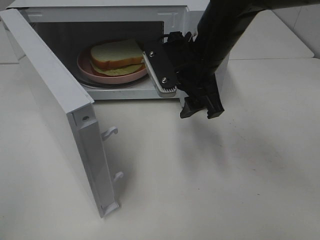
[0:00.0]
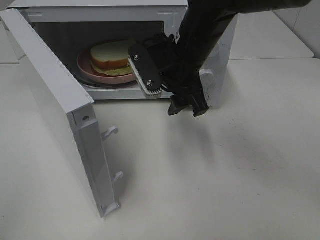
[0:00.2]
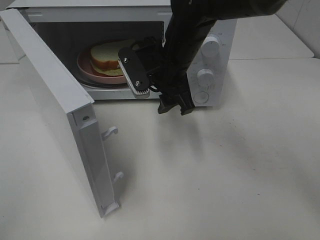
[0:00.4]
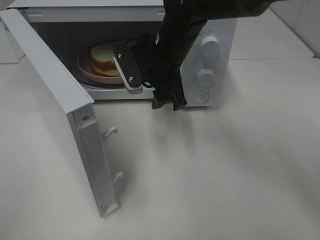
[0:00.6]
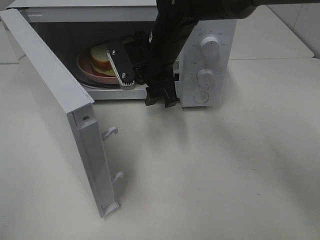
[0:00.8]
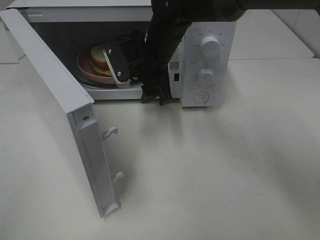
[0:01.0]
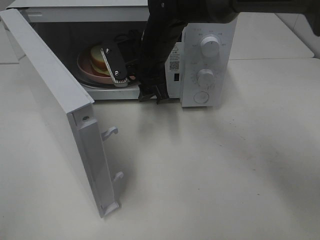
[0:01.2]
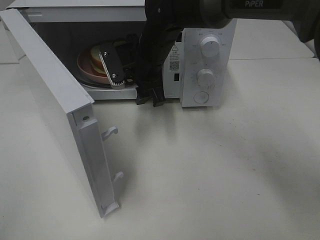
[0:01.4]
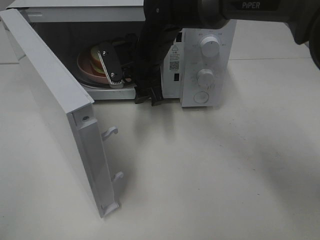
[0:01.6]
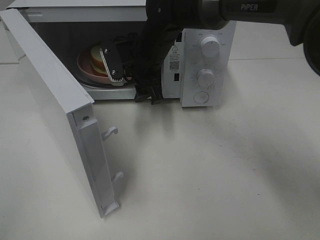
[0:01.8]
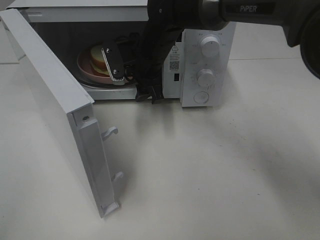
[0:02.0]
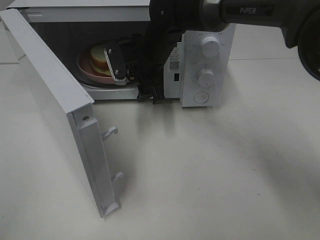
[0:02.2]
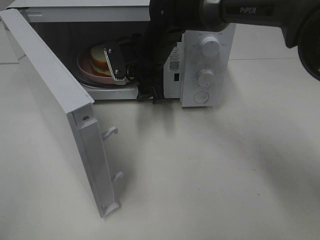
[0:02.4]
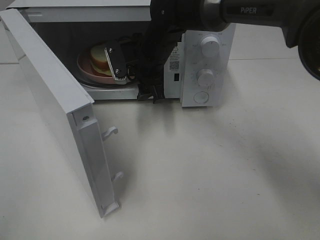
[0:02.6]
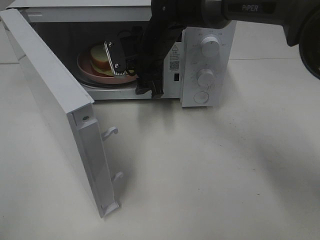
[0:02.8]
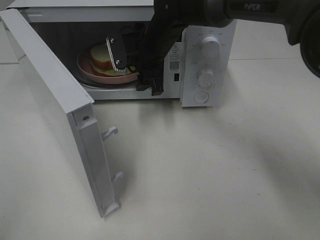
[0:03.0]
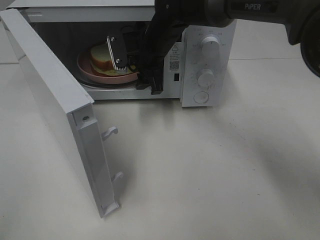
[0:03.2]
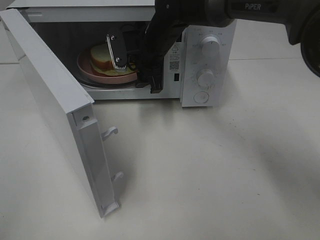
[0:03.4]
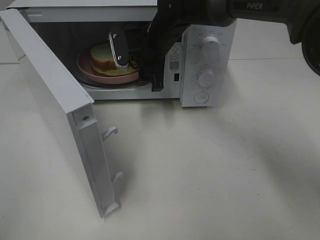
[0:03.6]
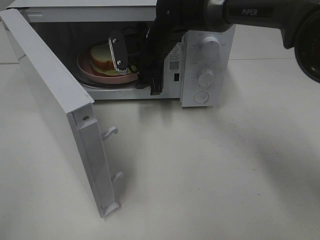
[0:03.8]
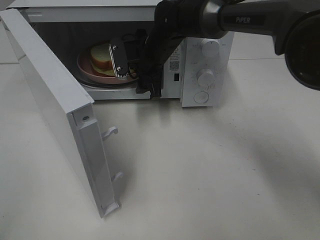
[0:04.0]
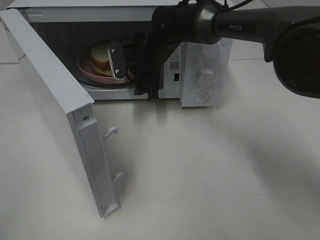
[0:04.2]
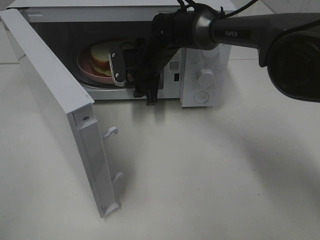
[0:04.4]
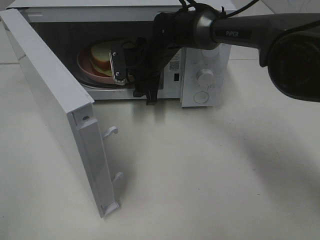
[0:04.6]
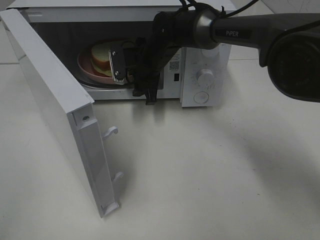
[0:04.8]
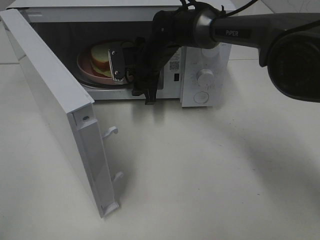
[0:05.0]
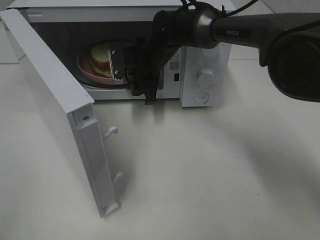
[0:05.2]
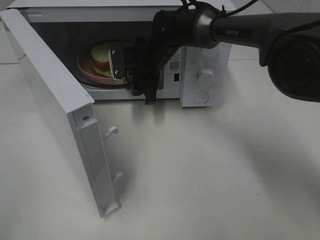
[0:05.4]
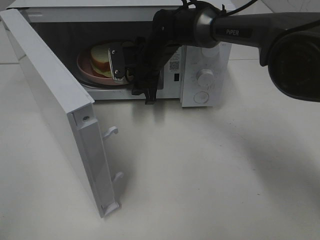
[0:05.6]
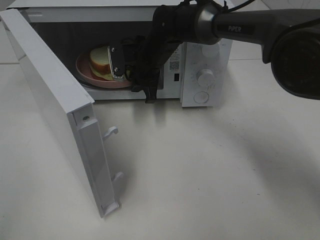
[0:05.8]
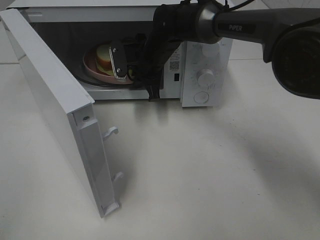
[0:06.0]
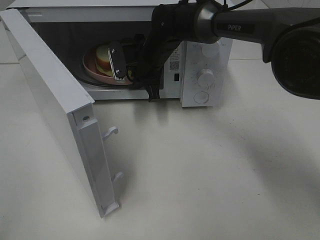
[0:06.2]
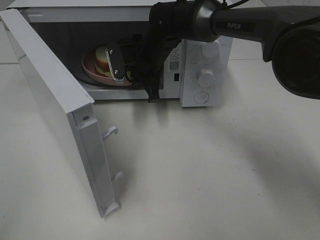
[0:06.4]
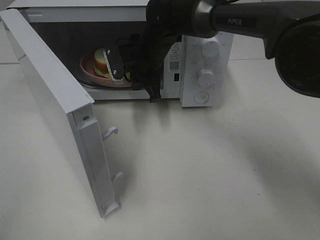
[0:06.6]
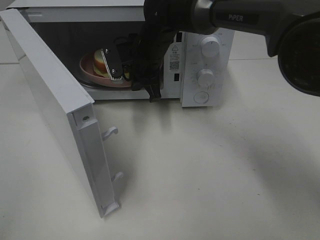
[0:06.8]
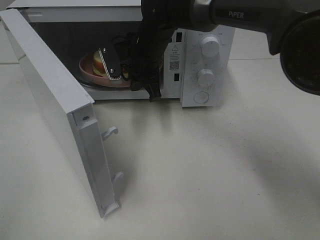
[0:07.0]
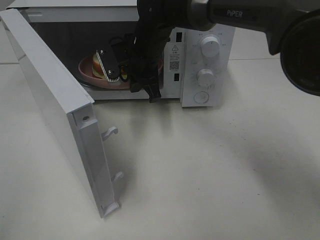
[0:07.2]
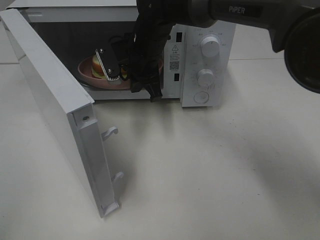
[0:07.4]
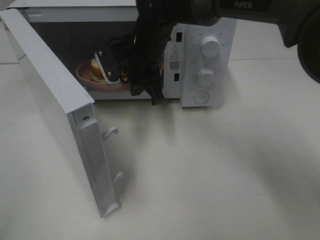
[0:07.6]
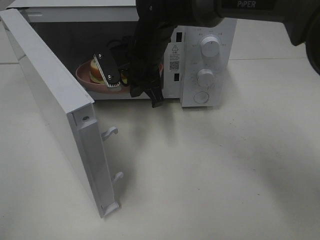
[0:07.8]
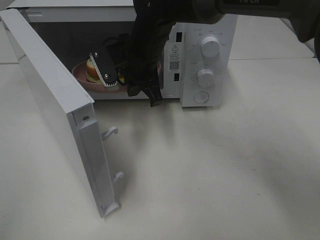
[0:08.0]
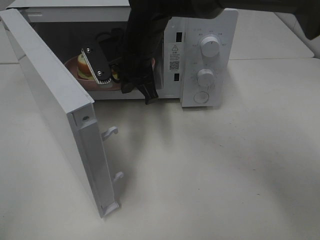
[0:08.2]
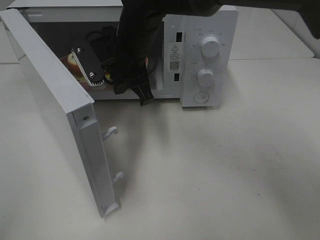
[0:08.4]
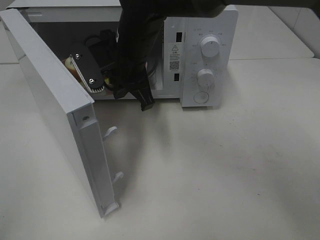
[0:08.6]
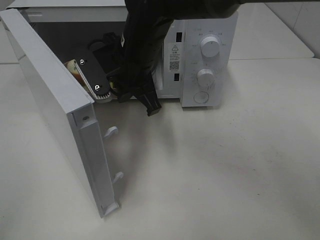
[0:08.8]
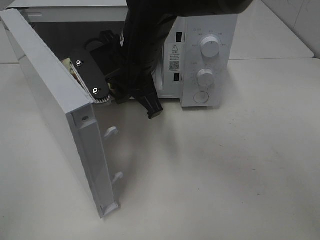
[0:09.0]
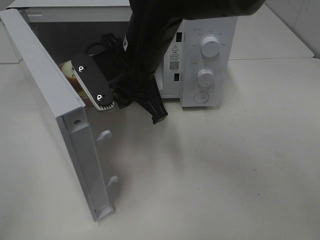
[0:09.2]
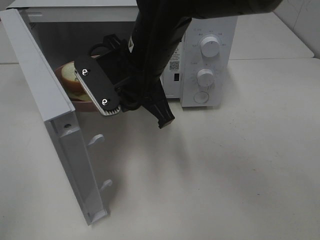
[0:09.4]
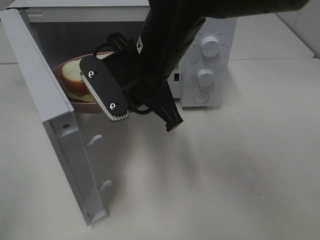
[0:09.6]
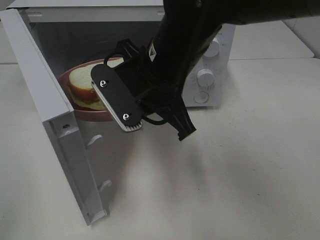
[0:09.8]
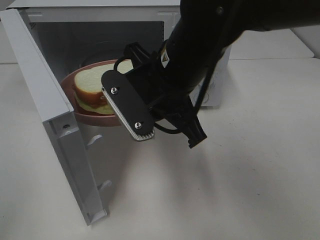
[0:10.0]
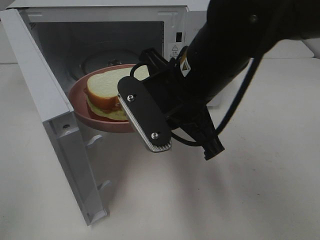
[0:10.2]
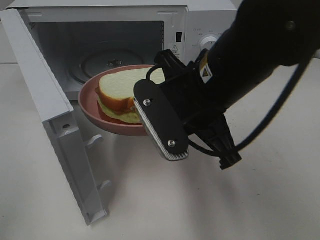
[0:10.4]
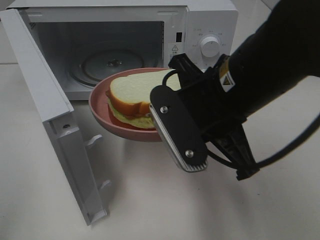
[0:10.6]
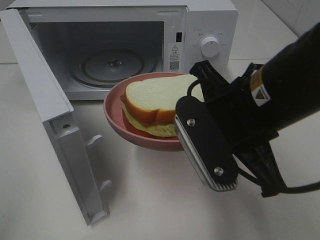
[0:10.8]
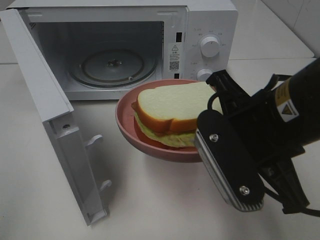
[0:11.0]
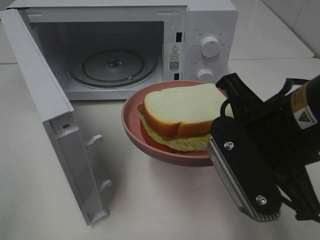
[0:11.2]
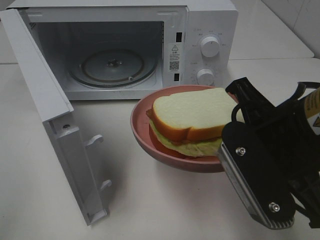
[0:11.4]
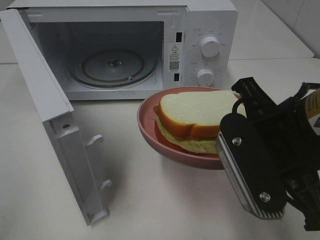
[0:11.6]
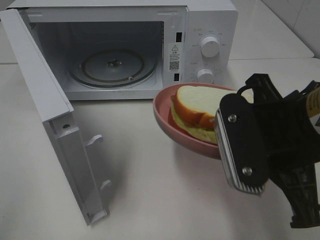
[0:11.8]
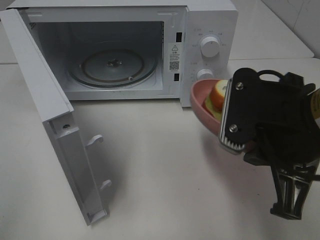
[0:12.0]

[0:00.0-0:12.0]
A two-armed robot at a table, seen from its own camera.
Task of the whole recording: Heat Sandwich.
Step, 0:00.0 to 0:06.4: Right hand: grab the plate with the sandwich.
0:00.0 to 0:01.6: The right gripper heads forward and to the left, covering roughly 10 cm.
0:01.6 to 0:03.0: The grippers move only a little.
0:03.0 to 0:04.4: The right gripper shifts by some 5 cm.
0:04.4 to 0:06.0: The right gripper closes up.
0:06.0 to 0:07.6: The right gripper travels backward by some 5 cm.
0:07.6 to 0:09.0: The right gripper is displaced backward by approximately 10 cm.
0:09.0 to 0:10.4: The right gripper moves backward and to the right, roughly 15 cm.
0:10.4 to 0:12.0: The right gripper shifts approximately 10 cm to the right and backward.

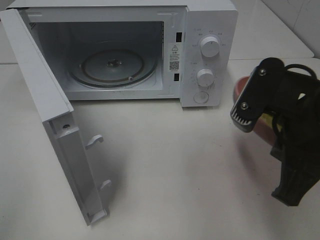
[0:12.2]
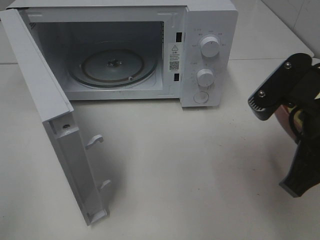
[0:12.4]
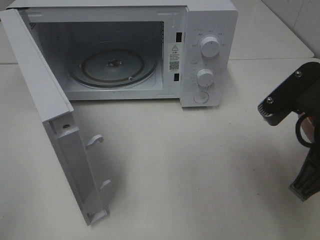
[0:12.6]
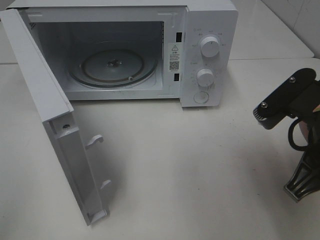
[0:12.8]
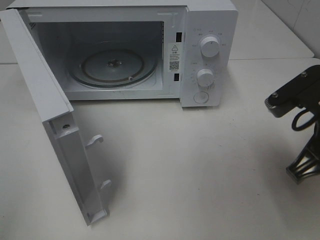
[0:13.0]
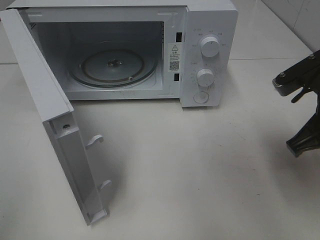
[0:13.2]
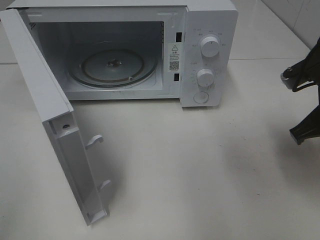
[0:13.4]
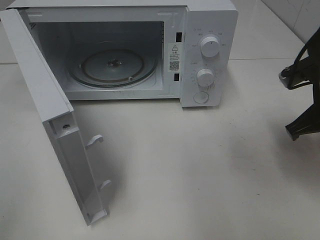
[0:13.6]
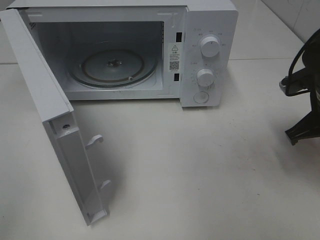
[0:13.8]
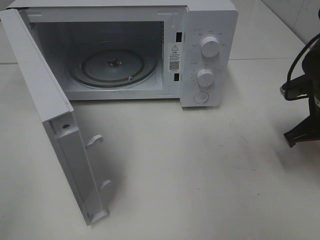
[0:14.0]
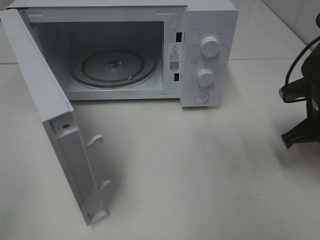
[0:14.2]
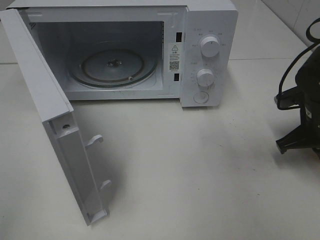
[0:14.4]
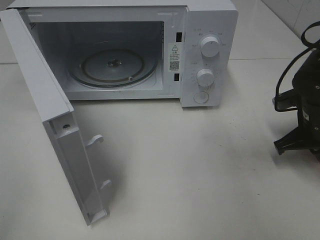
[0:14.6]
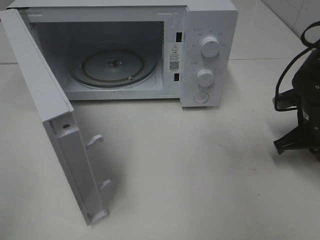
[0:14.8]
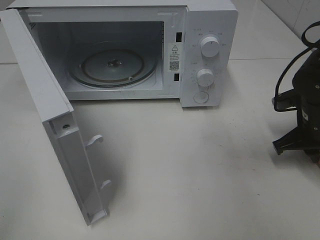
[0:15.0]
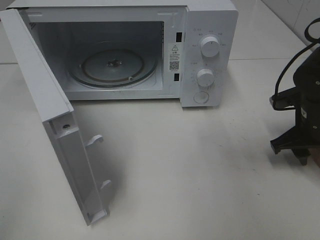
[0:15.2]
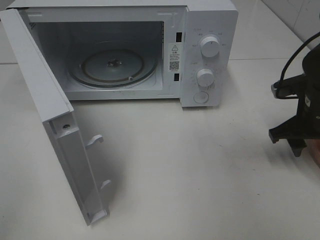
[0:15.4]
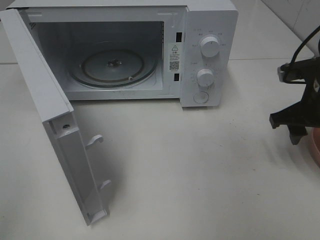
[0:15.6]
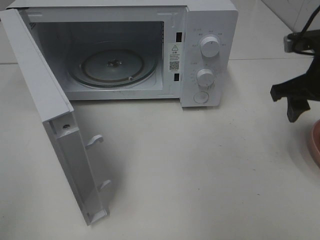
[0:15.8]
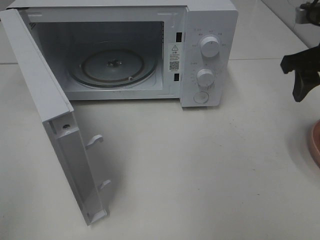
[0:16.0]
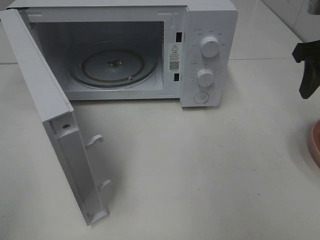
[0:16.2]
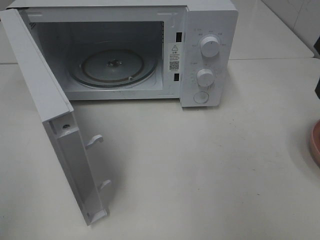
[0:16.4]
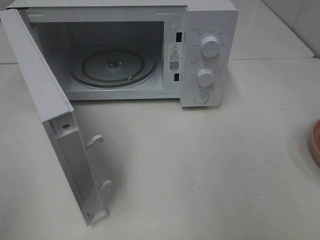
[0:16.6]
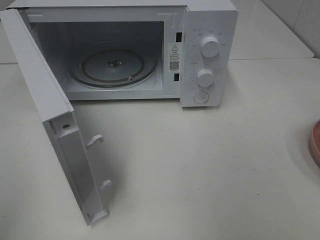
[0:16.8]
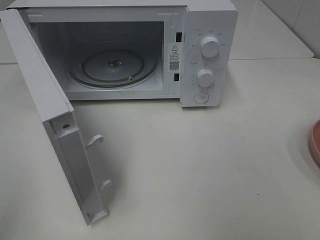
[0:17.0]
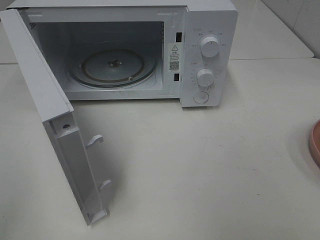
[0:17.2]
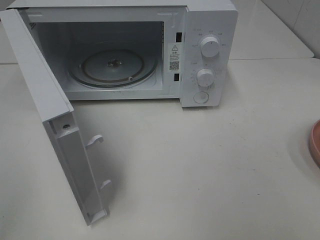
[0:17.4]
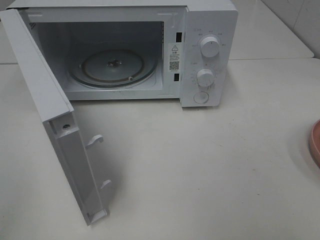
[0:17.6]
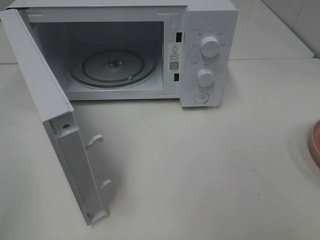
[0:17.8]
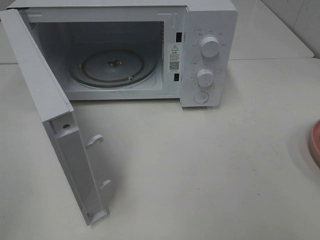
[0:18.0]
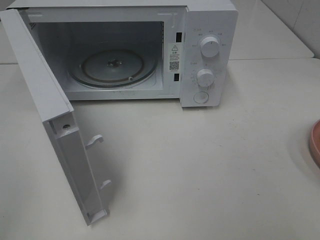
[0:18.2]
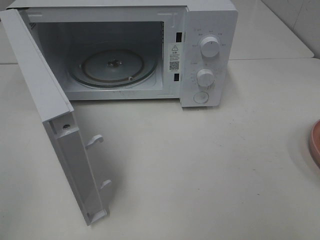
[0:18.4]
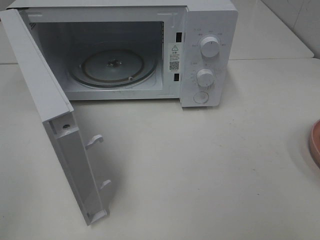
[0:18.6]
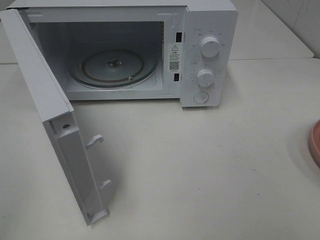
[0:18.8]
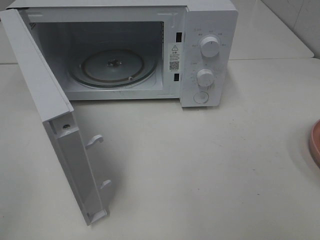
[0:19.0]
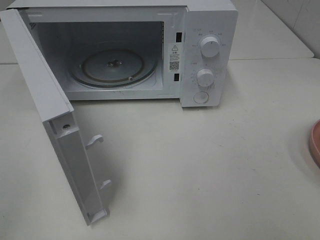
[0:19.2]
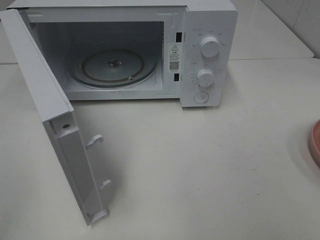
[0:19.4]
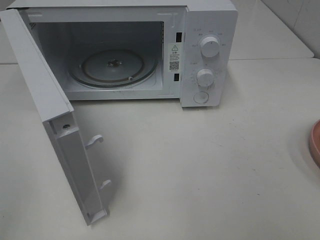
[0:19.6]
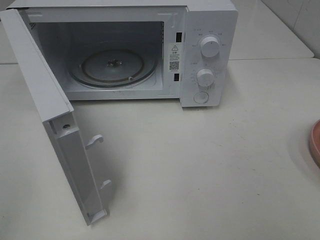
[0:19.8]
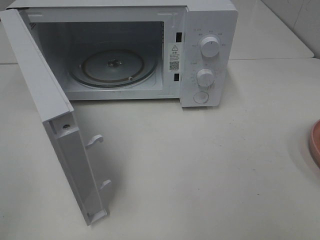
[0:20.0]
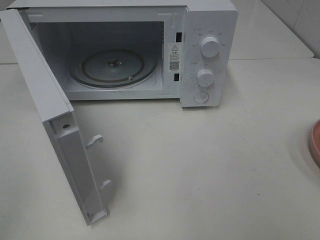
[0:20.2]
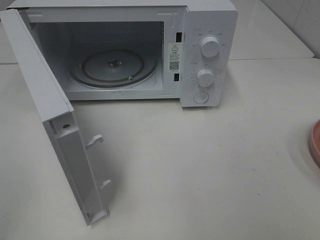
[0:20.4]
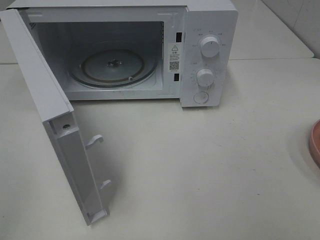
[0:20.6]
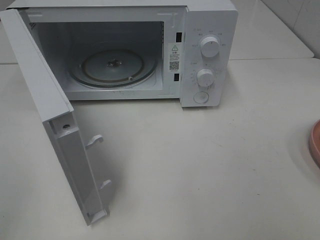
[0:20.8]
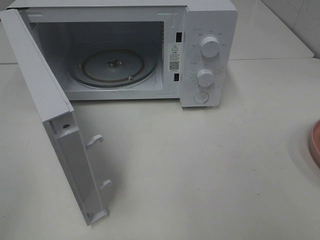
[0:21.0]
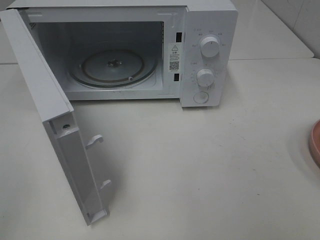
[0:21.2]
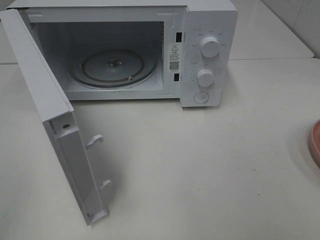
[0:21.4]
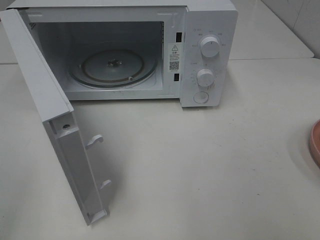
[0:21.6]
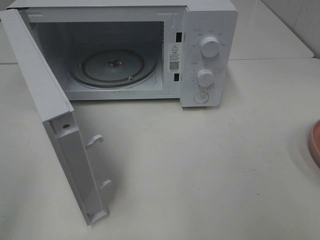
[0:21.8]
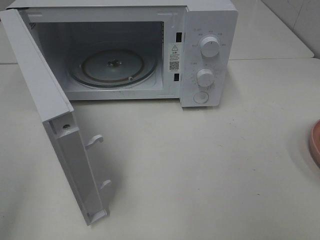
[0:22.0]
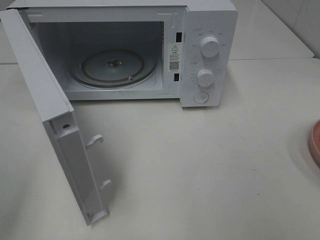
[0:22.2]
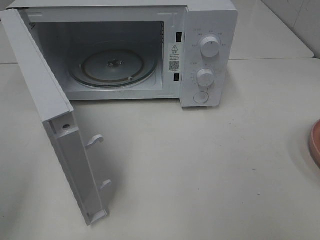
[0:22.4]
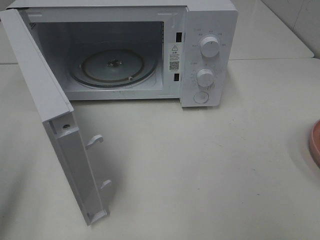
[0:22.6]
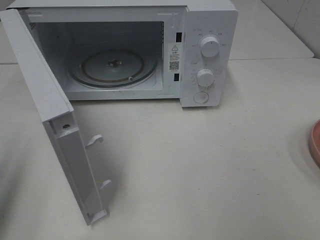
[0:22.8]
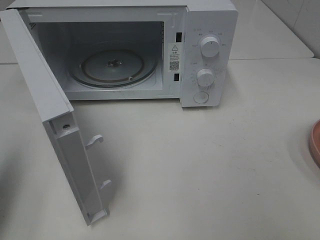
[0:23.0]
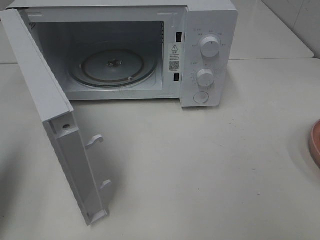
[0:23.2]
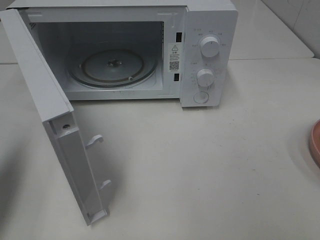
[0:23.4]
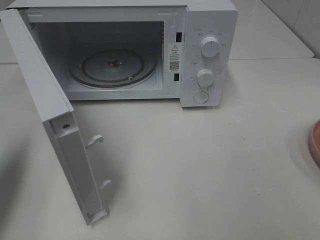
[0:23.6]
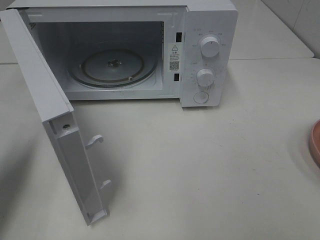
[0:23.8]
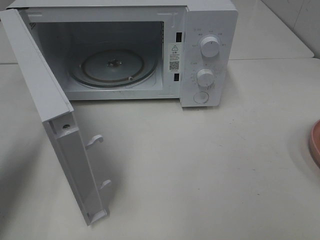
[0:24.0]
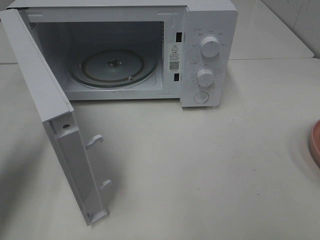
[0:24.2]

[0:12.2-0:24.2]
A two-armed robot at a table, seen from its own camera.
Task of the whole recording: Heat Sandwich.
Step, 0:12.2 to 0:16.0: Right hand: place the plate on the table.
0:12.2 to 0:13.8: The right gripper heads forward, to the right and downward, covering about 15 cm.
0:13.8 to 0:15.2: The right gripper shifts some 5 cm downward, and opens up.
0:15.2 to 0:16.6: The right gripper travels upward by about 20 cm.
0:18.2 to 0:21.2: Neither gripper changes place.
0:21.2 to 0:22.6: The left gripper is displaced forward by some 10 cm.
0:22.6 to 0:24.2: The left gripper shifts some 15 cm forward and downward, and closes.
